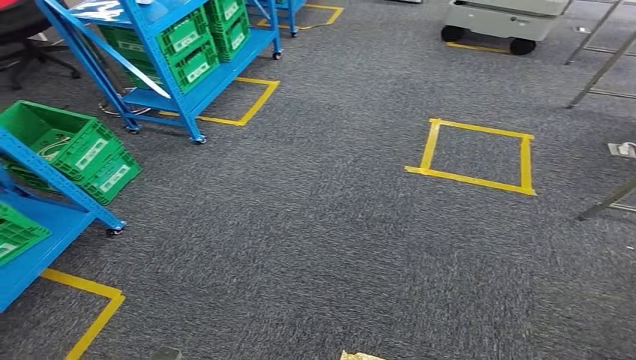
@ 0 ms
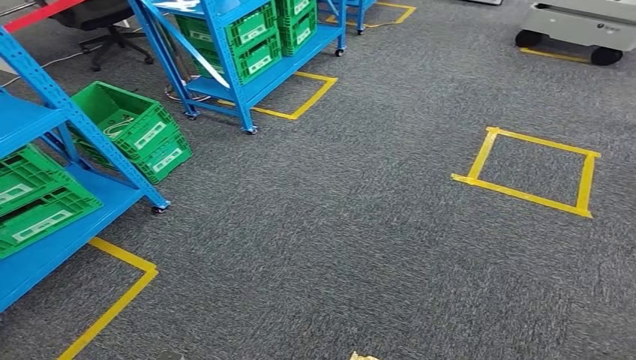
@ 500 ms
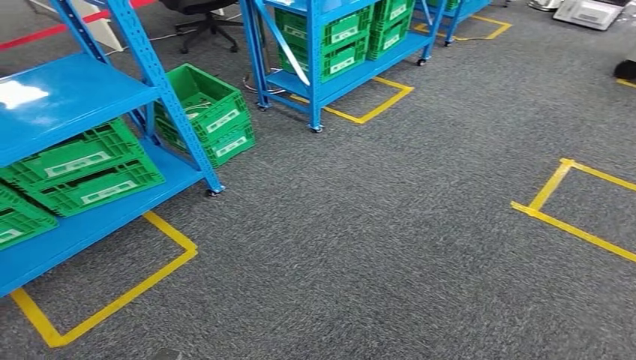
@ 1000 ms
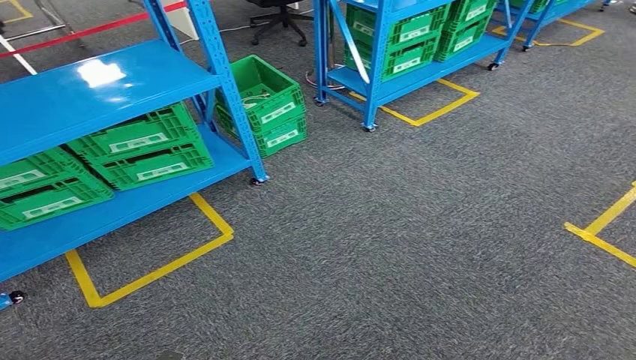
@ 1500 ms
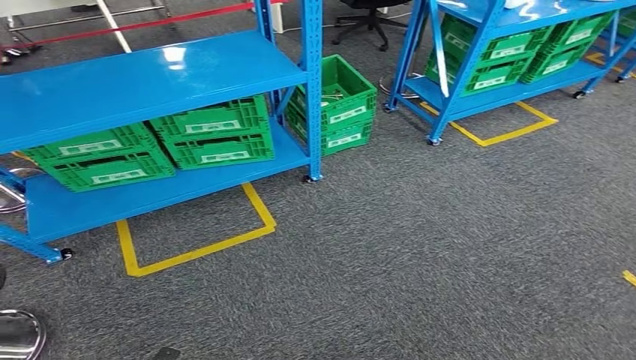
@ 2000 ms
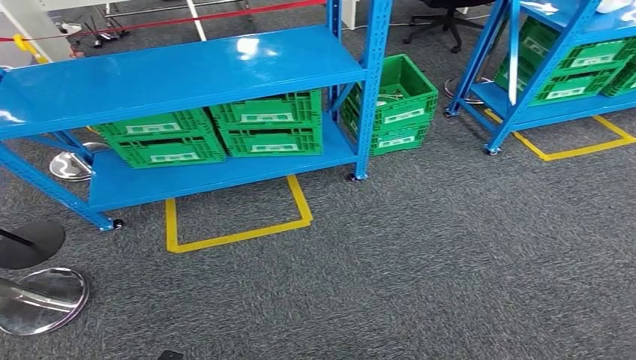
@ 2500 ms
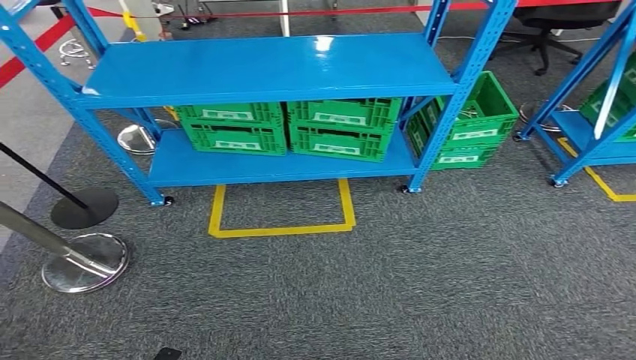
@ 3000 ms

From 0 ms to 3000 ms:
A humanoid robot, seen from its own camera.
Step, from 0 ms to 3000 ms: Return to the initial position at the workbench.

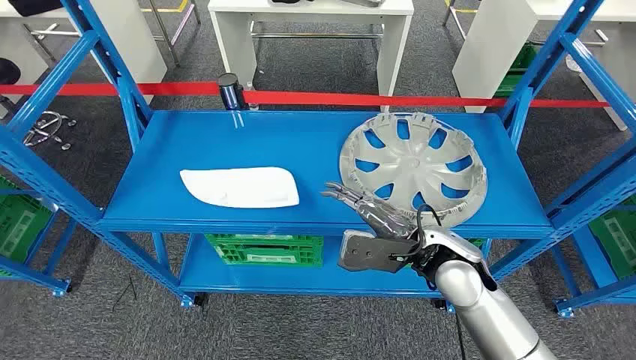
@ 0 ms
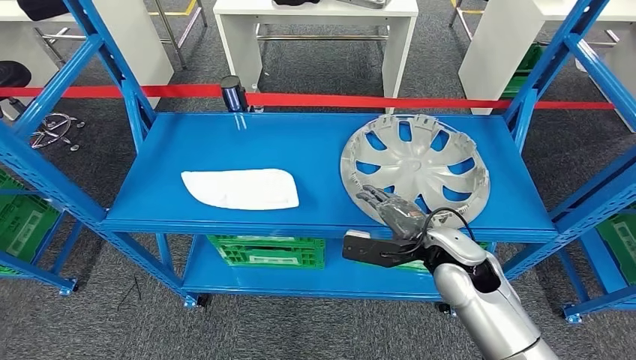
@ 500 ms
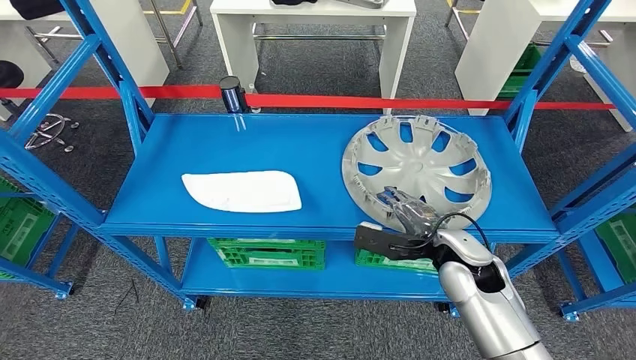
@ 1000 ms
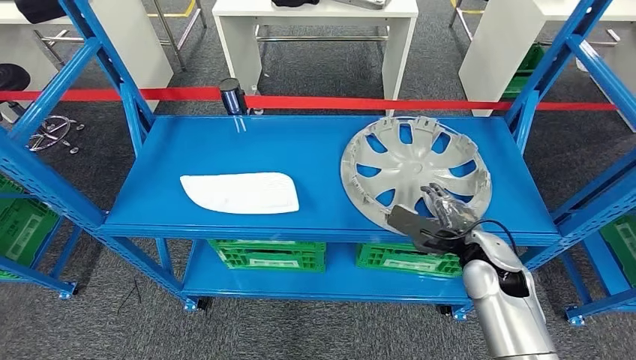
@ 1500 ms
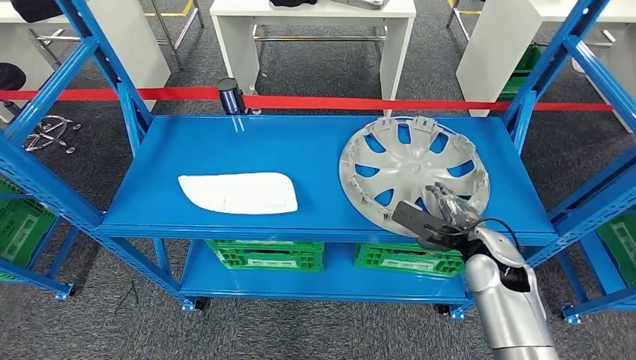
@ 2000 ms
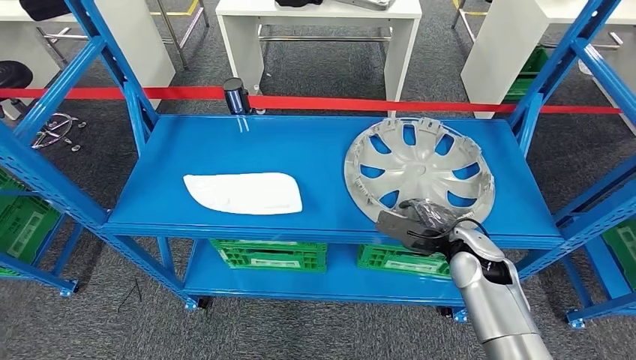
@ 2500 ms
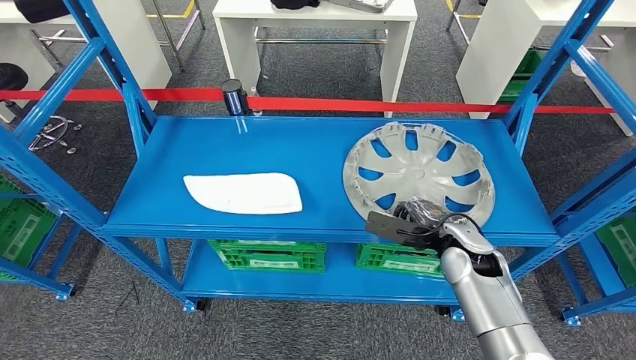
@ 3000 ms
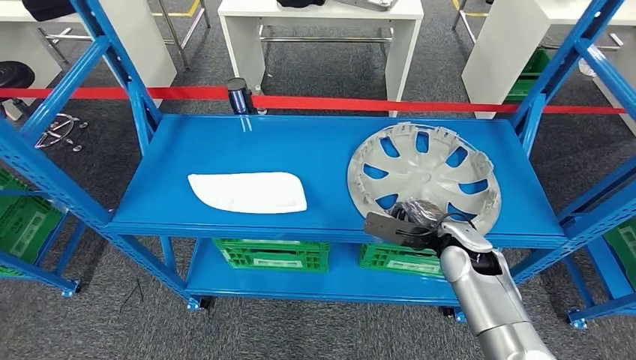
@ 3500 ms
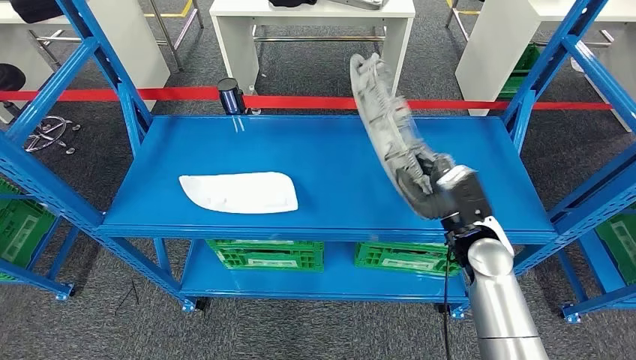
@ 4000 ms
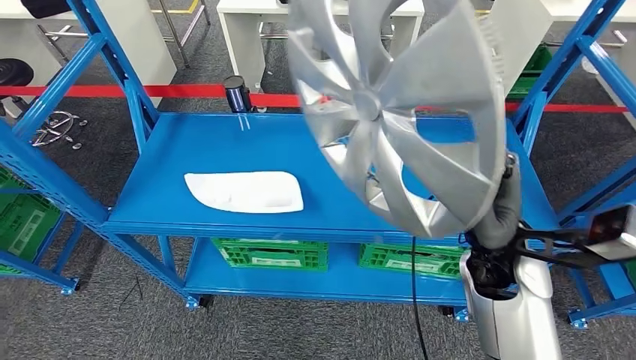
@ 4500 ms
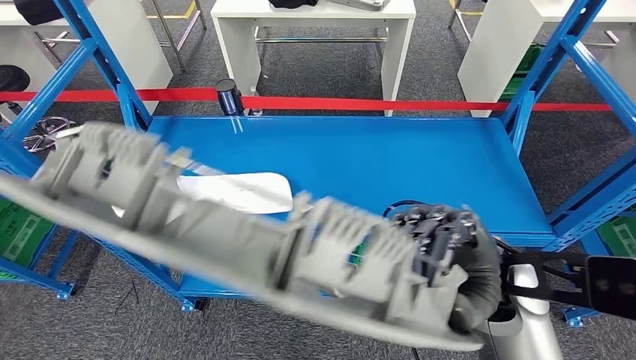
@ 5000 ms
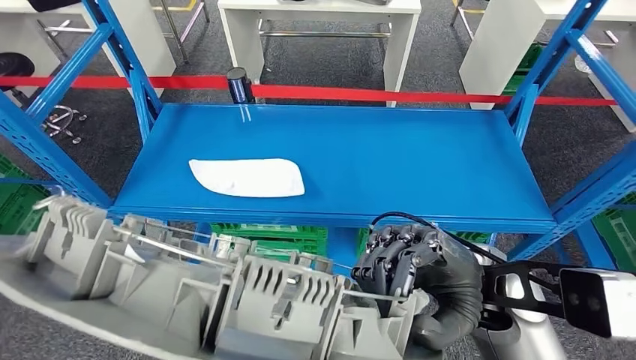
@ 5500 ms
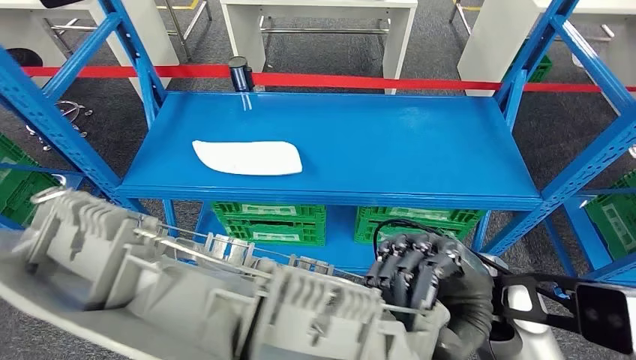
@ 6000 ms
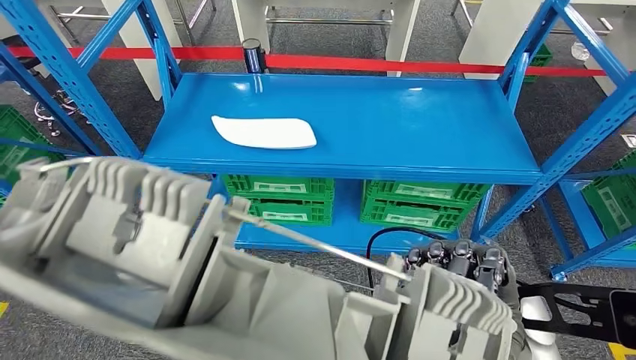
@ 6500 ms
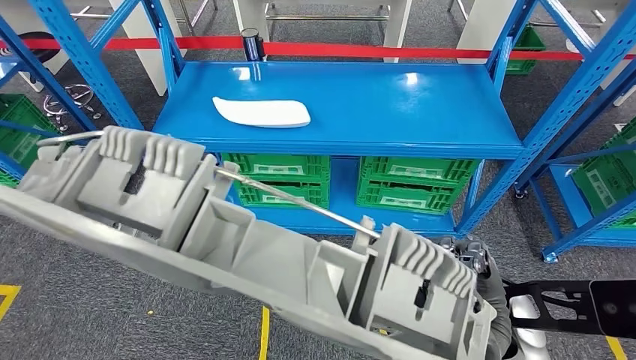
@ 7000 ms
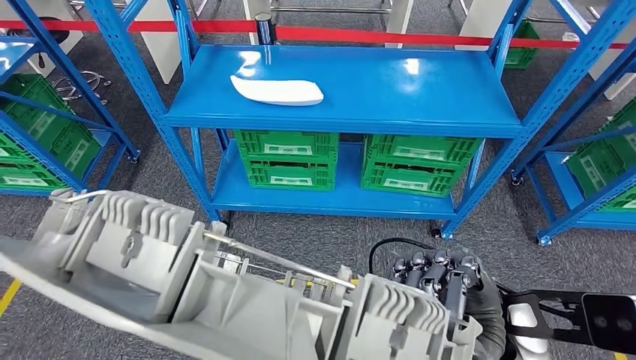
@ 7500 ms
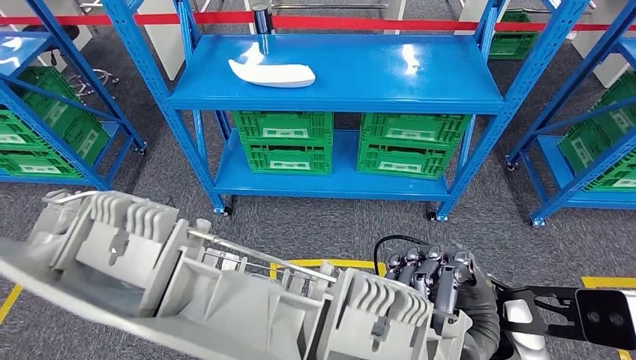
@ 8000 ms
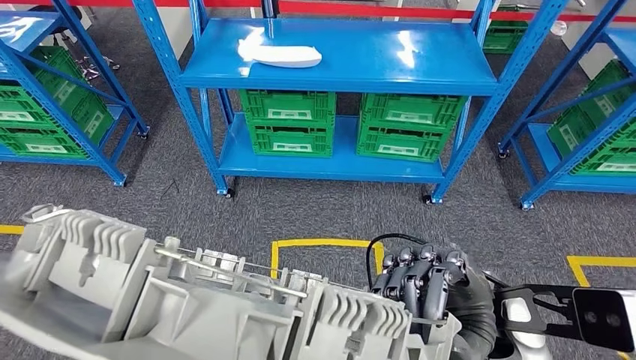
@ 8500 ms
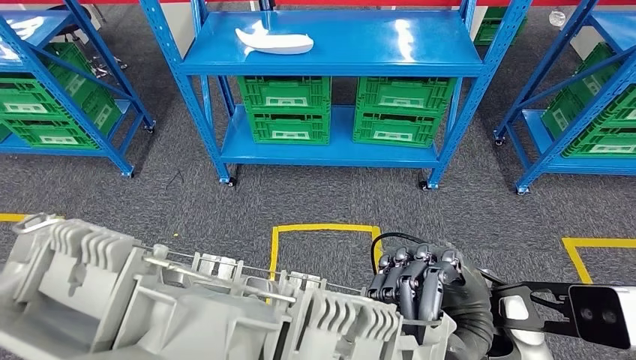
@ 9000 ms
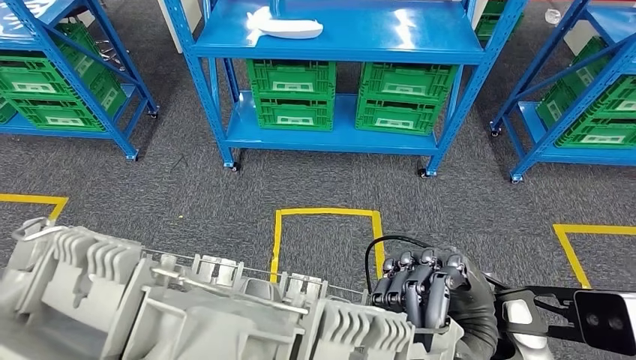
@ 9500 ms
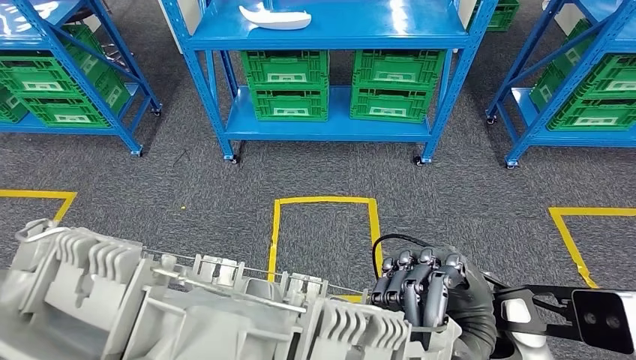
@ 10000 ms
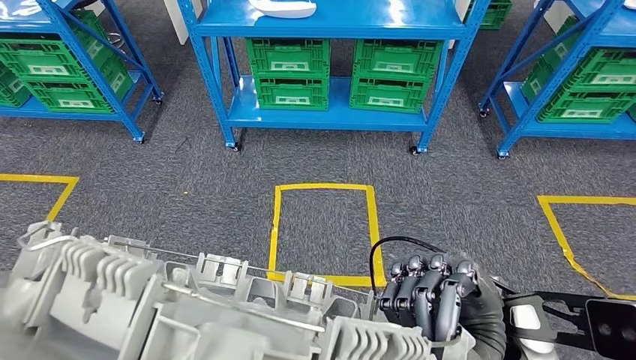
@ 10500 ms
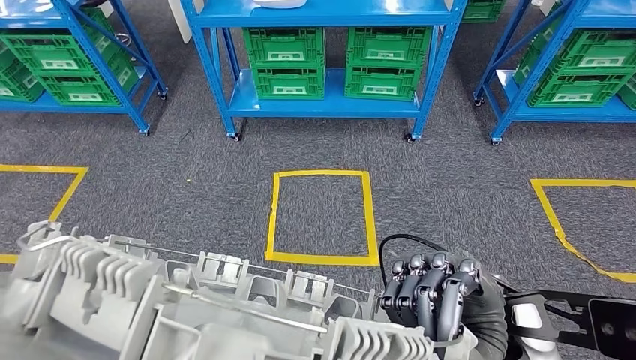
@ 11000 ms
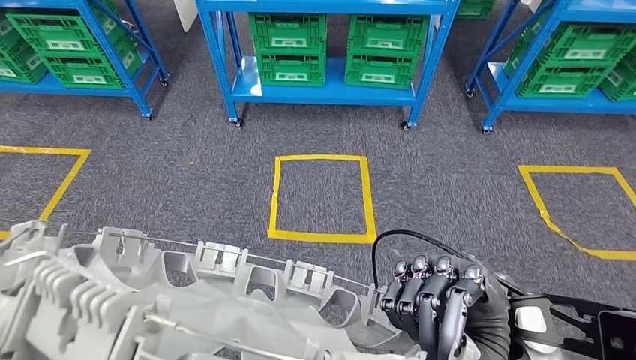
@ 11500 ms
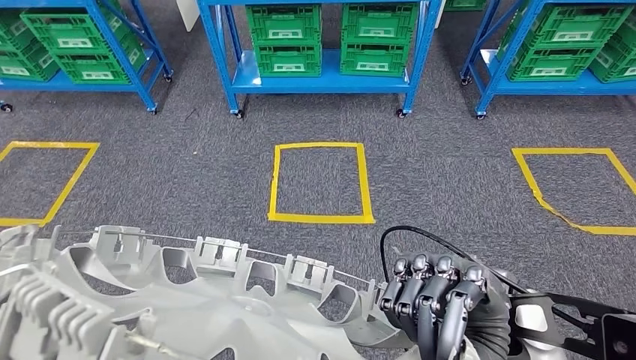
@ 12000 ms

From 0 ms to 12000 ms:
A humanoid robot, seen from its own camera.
Step, from 0 ms to 4000 ms: Pick up the small component from the shelf.

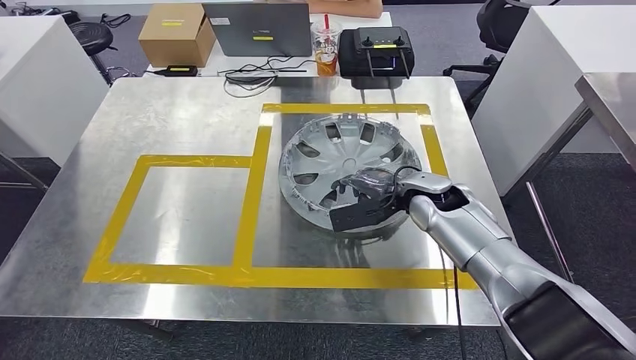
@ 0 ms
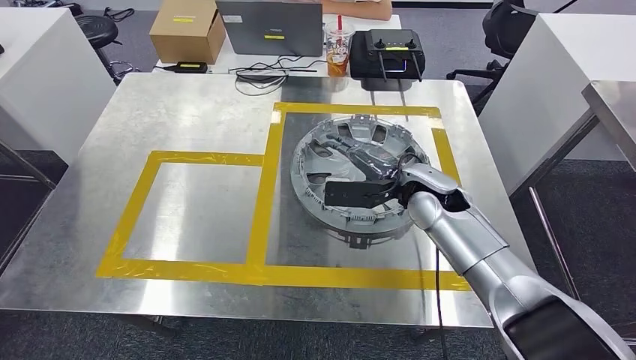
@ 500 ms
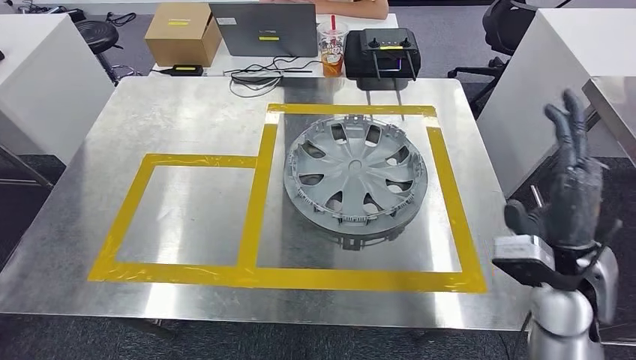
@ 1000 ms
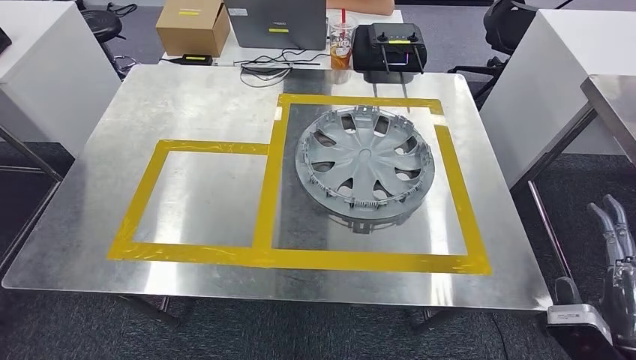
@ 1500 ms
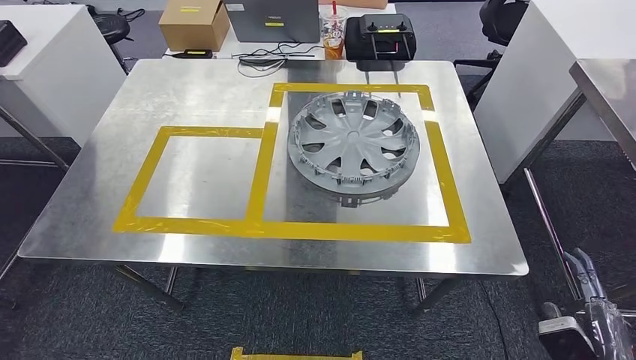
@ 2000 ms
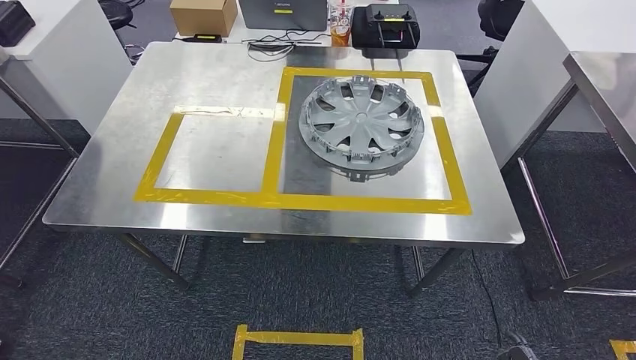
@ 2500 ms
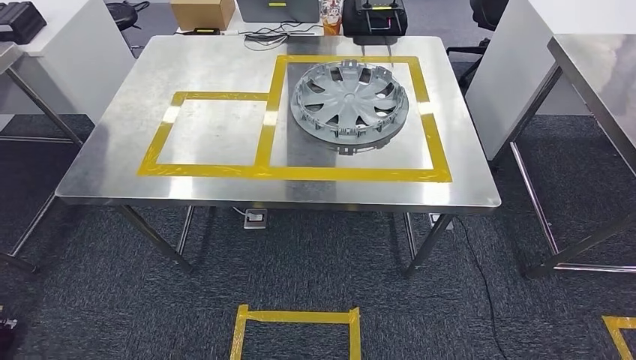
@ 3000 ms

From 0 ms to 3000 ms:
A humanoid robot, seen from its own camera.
Step, from 1000 ms to 3000 ms: Return to the initial position at the workbench.
